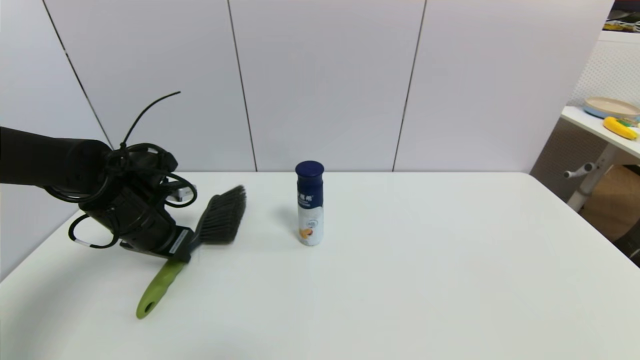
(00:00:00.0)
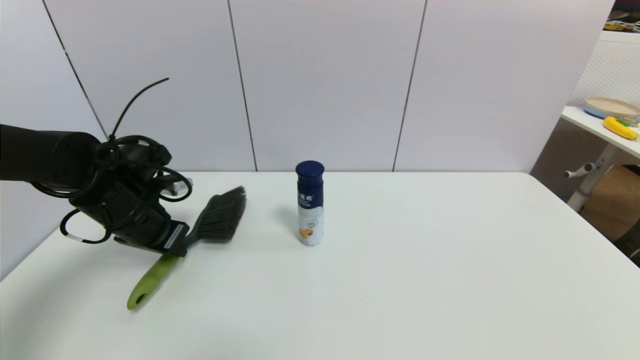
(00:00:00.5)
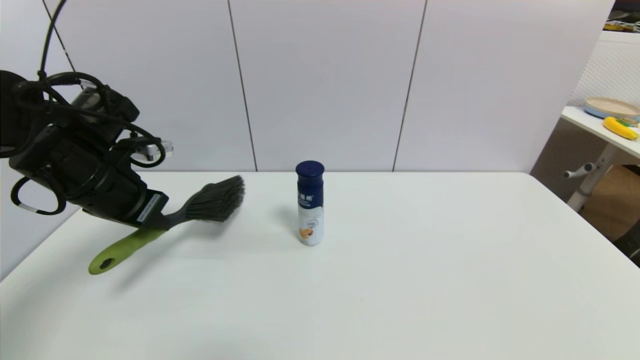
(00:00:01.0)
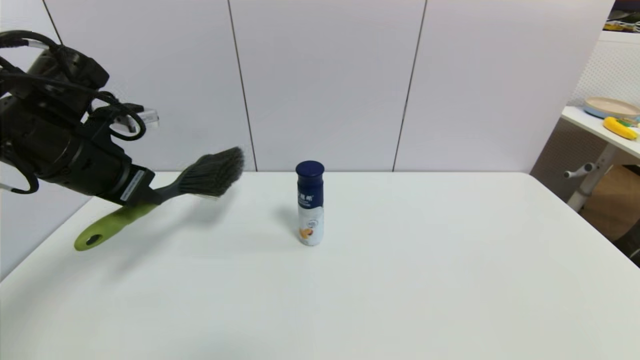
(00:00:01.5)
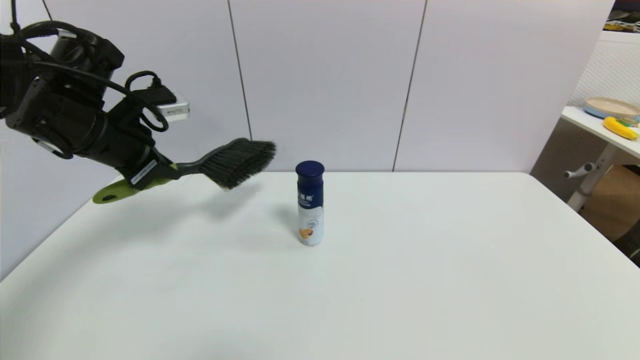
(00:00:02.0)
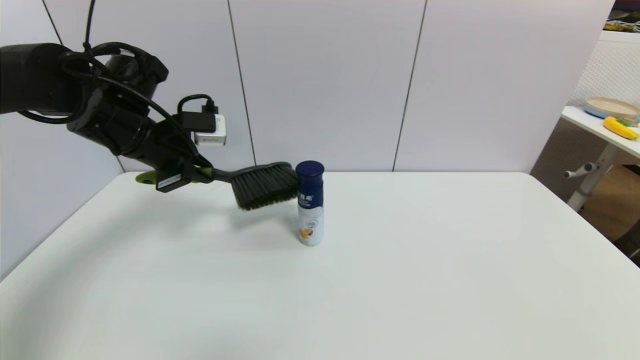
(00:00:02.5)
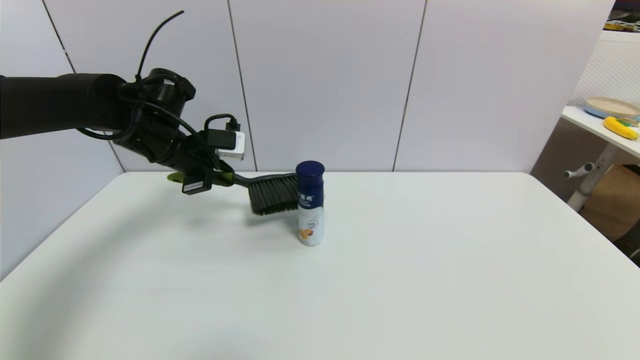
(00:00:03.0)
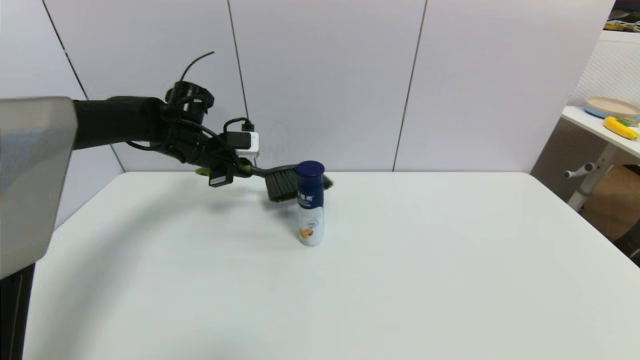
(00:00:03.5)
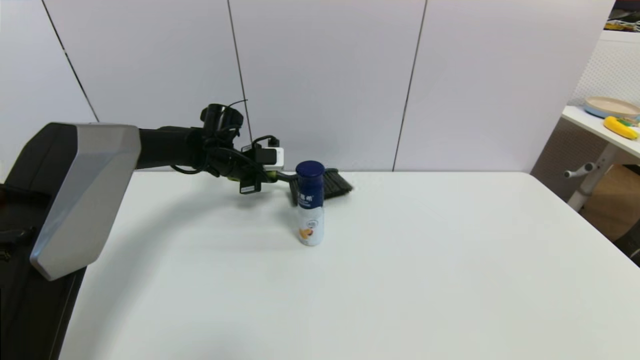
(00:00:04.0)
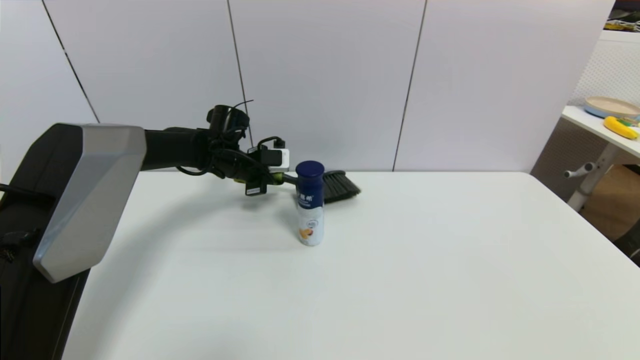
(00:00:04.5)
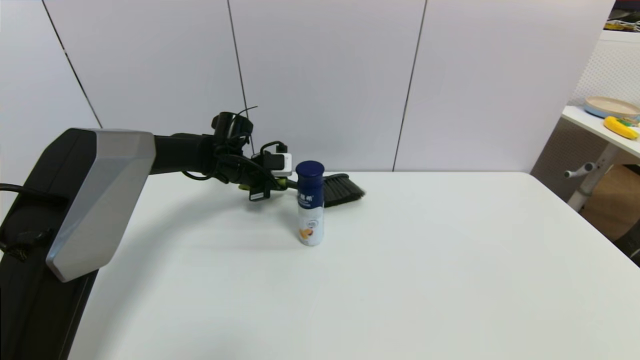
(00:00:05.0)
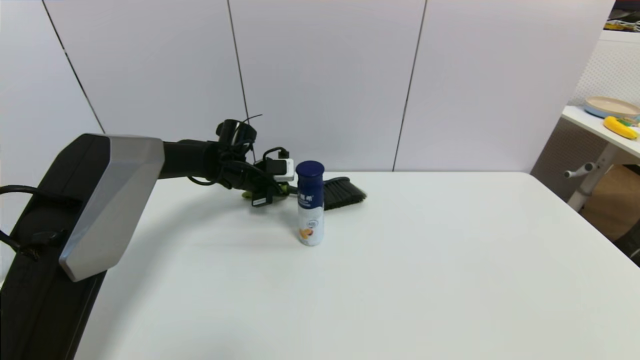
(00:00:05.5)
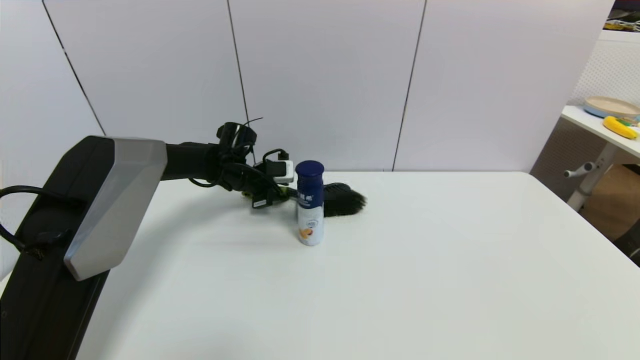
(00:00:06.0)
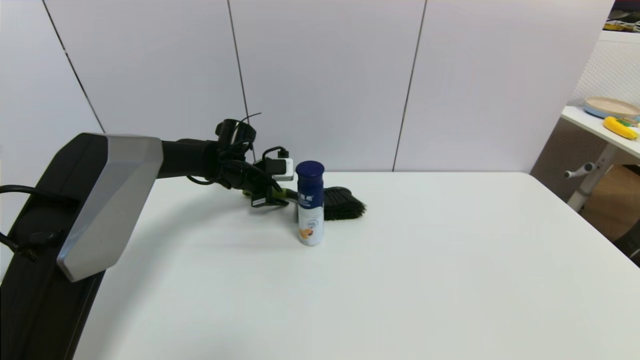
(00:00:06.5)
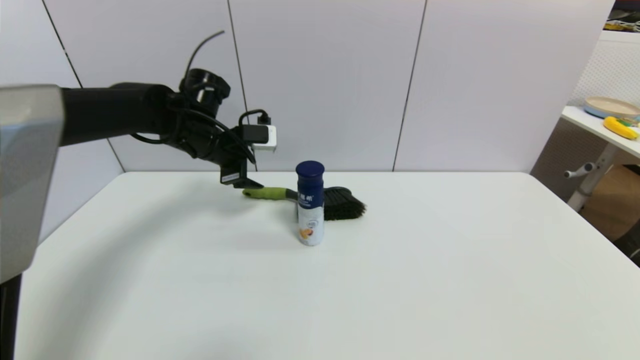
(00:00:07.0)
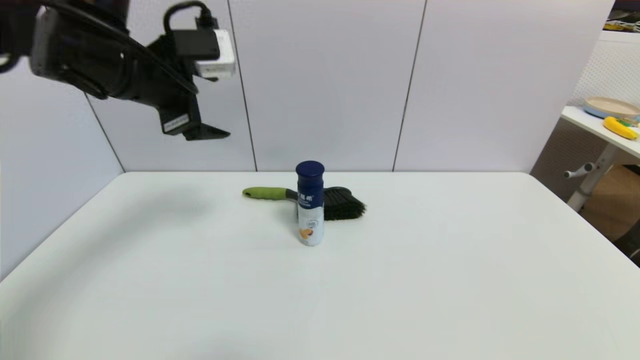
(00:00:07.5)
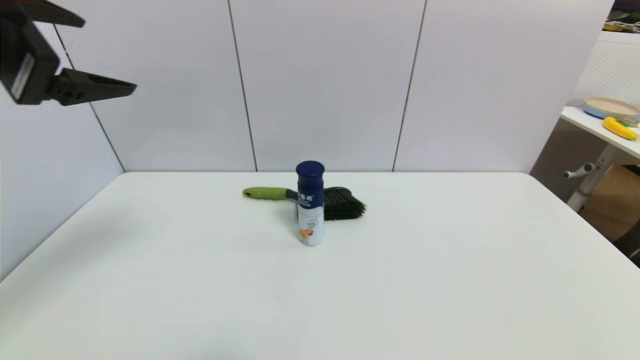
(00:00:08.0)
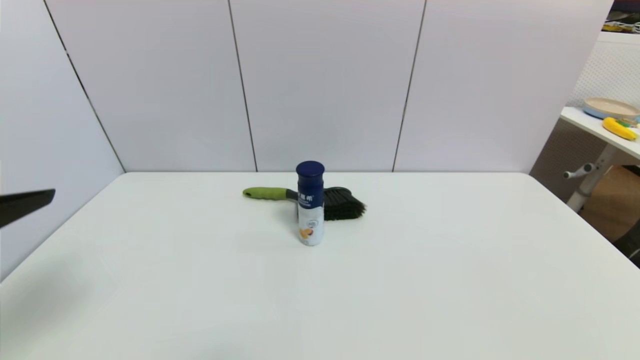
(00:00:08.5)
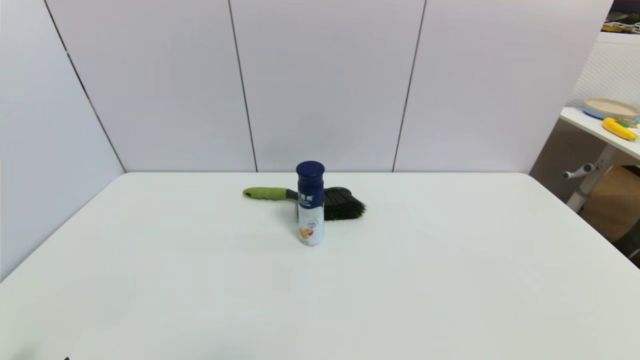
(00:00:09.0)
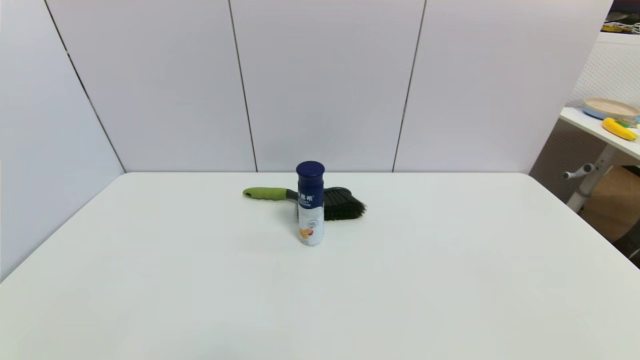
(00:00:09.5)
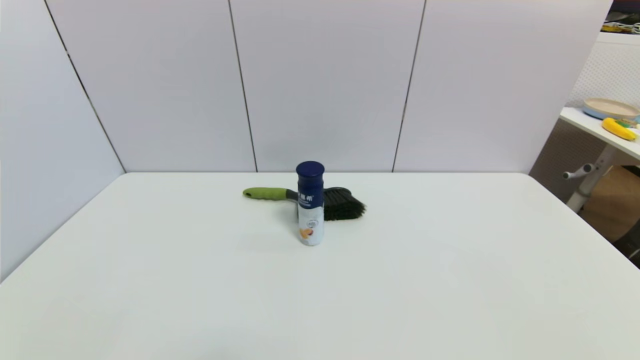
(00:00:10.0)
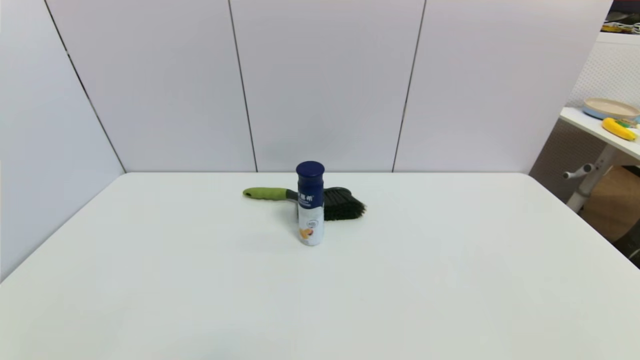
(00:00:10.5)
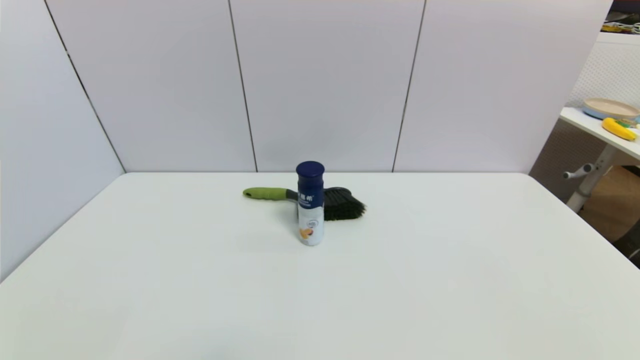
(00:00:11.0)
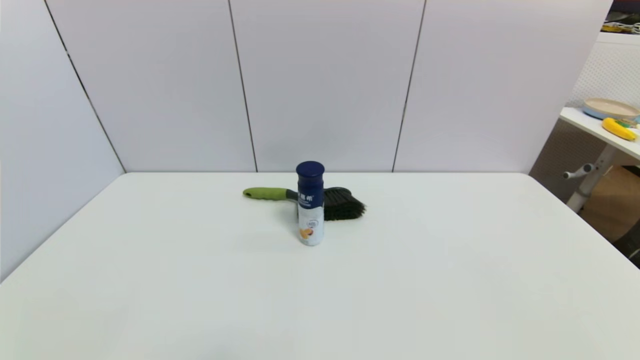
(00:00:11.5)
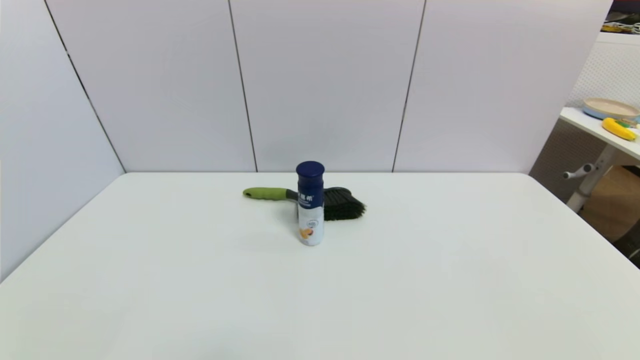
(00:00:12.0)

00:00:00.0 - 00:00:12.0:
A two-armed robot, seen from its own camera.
Task of the whole recording: put the brush in the designated position.
Step, 00:00:01.5 - 00:00:06.5: Place the brush on the table with left gripper.
00:00:00.0 - 00:00:02.0: The left gripper is displaced upward by roughly 15 cm.
00:00:02.0 - 00:00:04.0: The left gripper is displaced forward, downward and to the right by approximately 20 cm.
00:00:04.0 - 00:00:06.0: There are only small adjustments of the grippers.
00:00:06.0 - 00:00:08.0: The left gripper travels backward and upward by approximately 40 cm, and opens its fingers.
00:00:08.0 - 00:00:10.0: The left gripper is displaced downward and backward by some 40 cm.
00:00:10.0 - 00:00:12.0: Neither gripper changes place.
